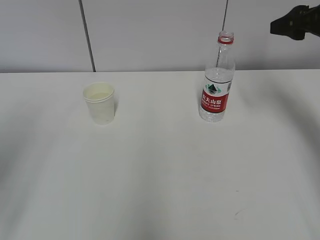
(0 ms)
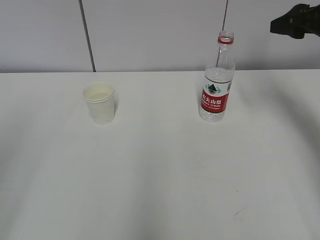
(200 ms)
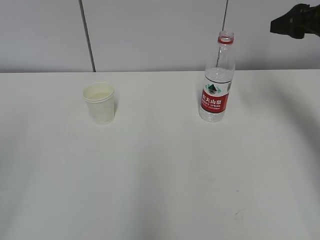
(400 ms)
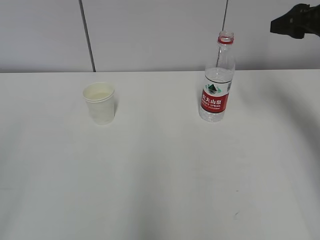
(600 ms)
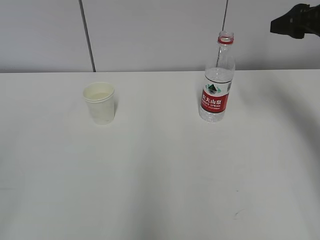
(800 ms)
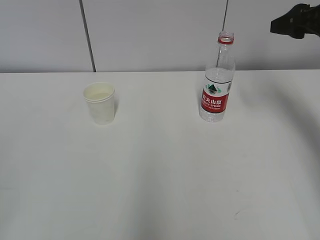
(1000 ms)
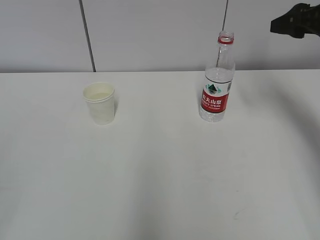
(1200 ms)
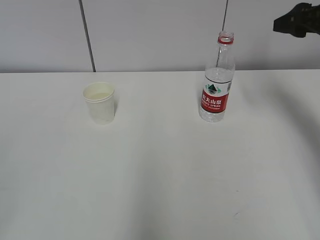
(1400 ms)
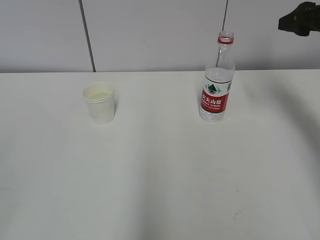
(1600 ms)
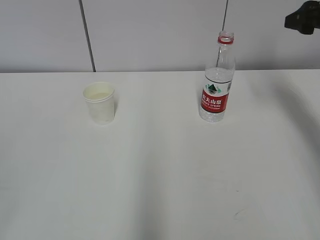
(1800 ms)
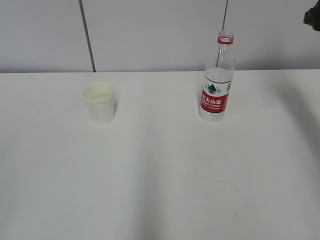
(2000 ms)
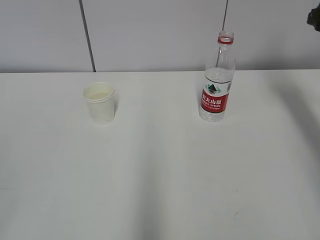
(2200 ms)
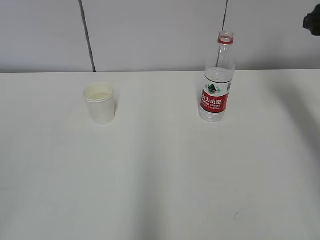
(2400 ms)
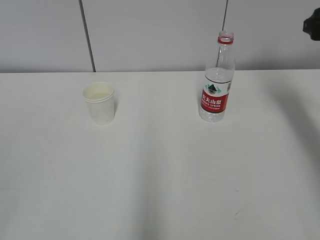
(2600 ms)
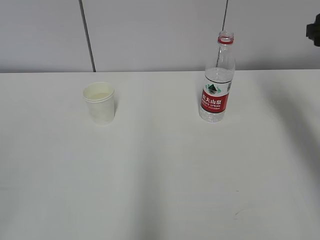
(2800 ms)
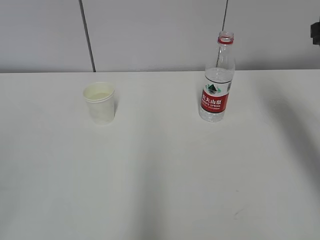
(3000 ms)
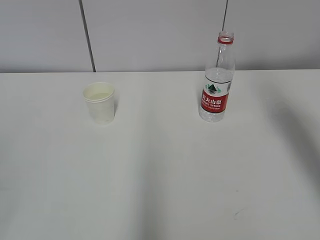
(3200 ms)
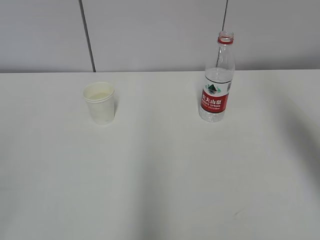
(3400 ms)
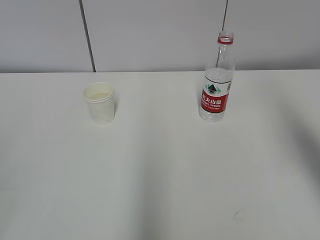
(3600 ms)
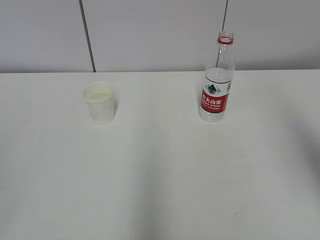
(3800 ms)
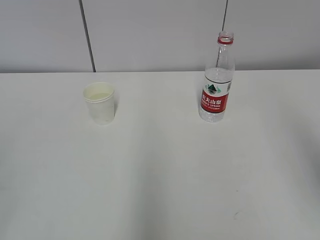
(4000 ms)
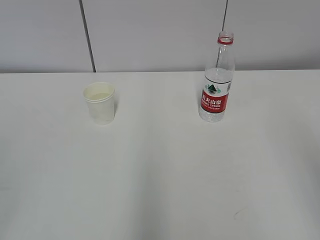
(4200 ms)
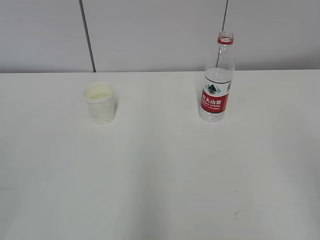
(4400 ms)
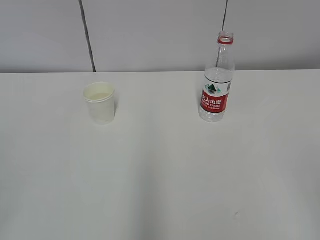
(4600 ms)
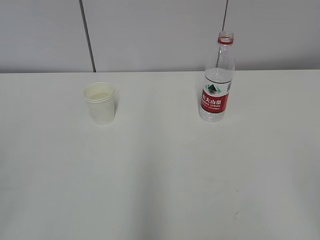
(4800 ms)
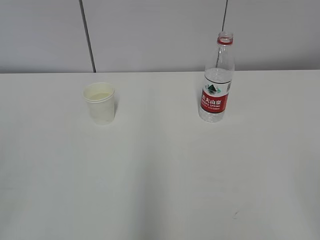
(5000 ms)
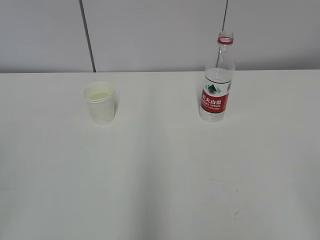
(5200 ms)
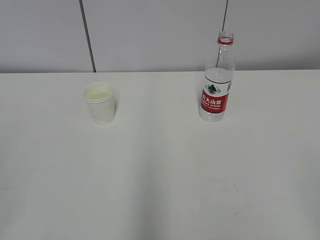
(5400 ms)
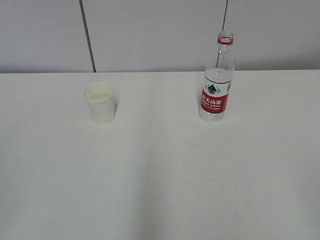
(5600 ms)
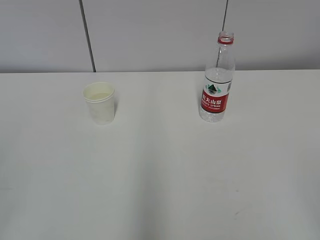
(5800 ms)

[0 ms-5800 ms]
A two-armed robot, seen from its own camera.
0 ms to 1400 ms: The left gripper goes about 15 cm backward.
2800 ms to 4400 ms: The right gripper shifts some 35 cm backward.

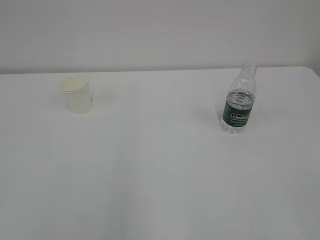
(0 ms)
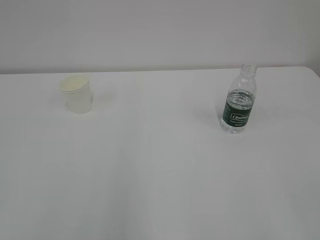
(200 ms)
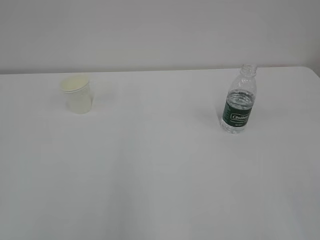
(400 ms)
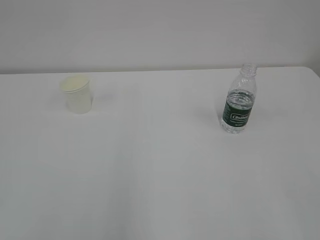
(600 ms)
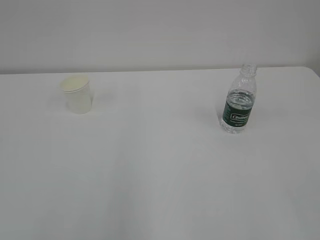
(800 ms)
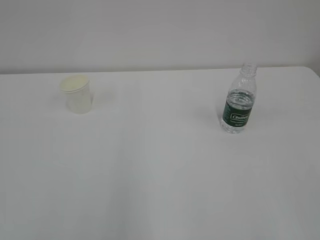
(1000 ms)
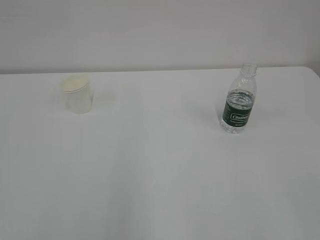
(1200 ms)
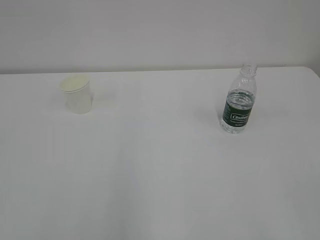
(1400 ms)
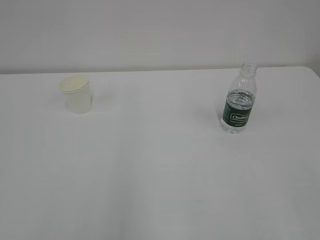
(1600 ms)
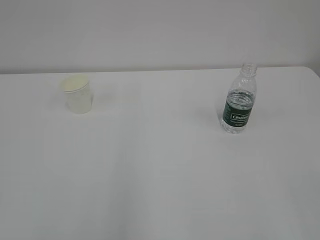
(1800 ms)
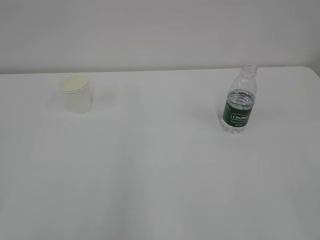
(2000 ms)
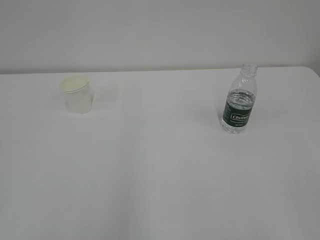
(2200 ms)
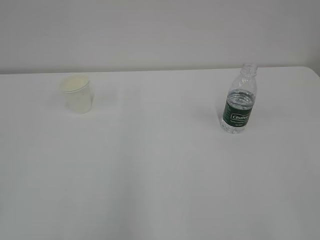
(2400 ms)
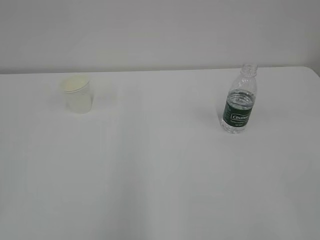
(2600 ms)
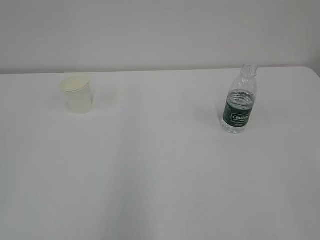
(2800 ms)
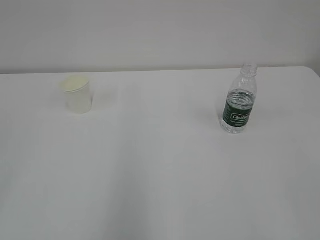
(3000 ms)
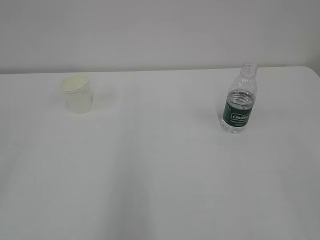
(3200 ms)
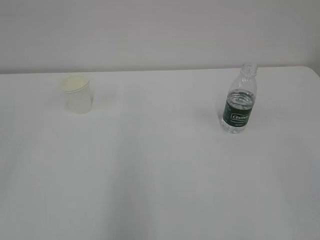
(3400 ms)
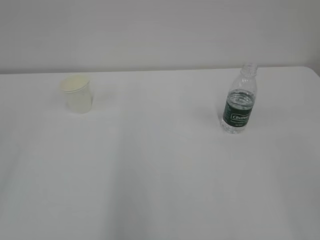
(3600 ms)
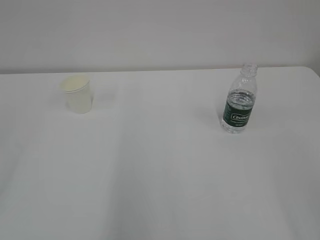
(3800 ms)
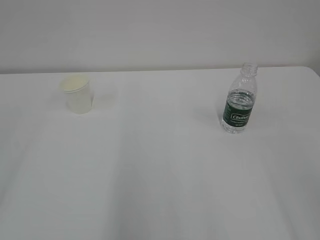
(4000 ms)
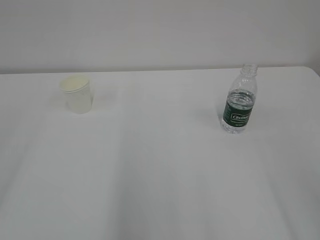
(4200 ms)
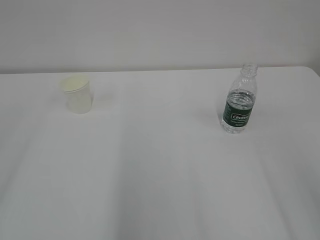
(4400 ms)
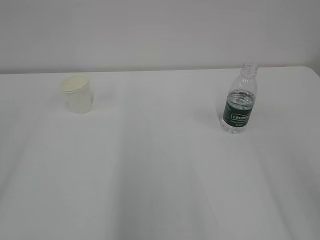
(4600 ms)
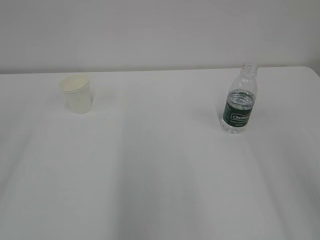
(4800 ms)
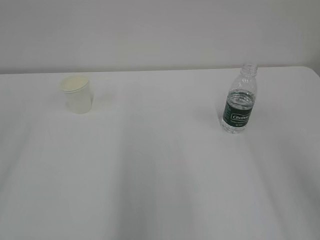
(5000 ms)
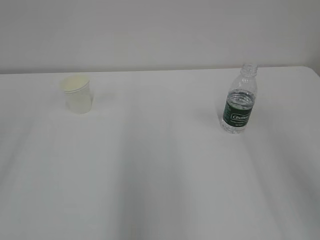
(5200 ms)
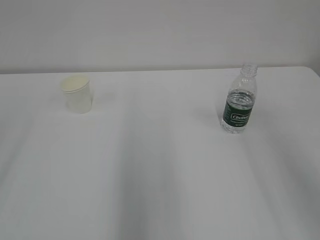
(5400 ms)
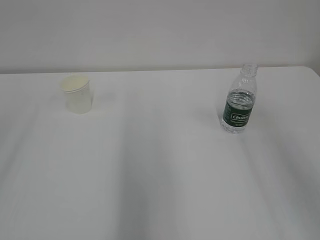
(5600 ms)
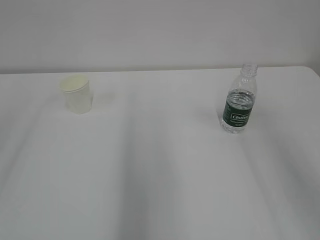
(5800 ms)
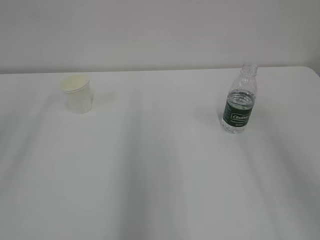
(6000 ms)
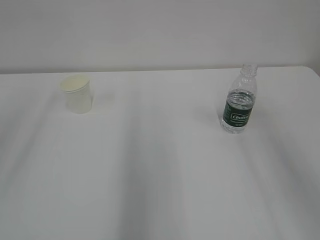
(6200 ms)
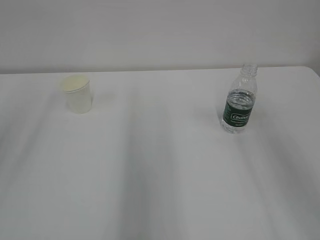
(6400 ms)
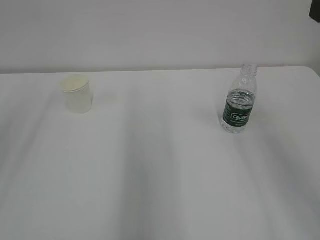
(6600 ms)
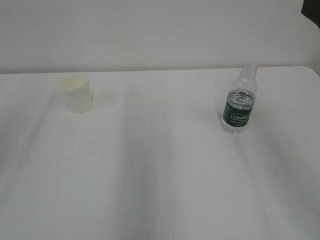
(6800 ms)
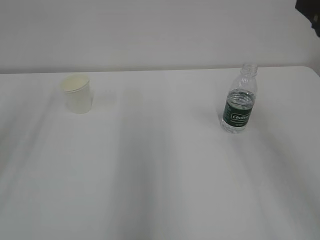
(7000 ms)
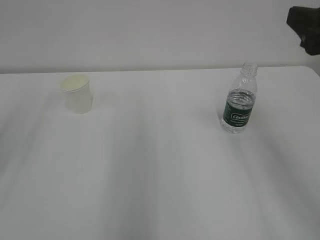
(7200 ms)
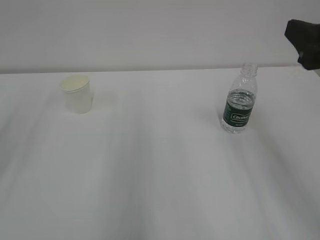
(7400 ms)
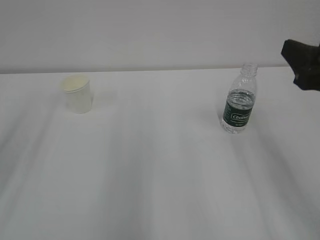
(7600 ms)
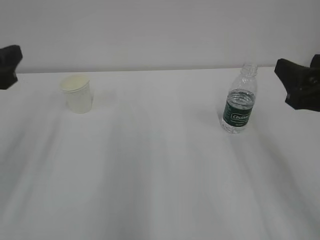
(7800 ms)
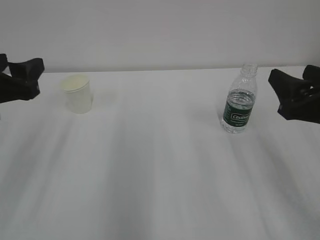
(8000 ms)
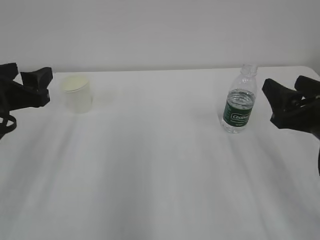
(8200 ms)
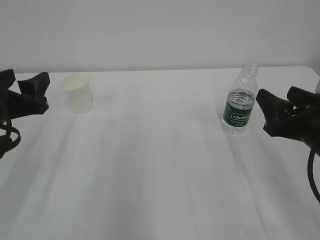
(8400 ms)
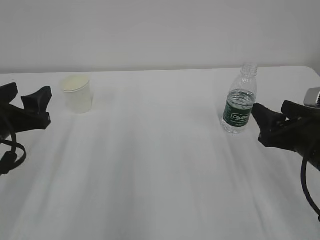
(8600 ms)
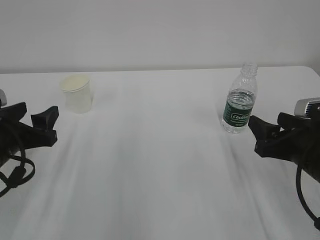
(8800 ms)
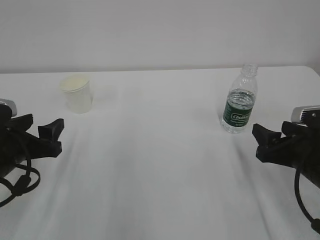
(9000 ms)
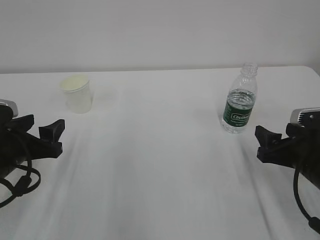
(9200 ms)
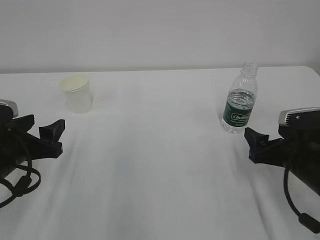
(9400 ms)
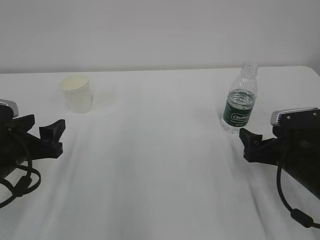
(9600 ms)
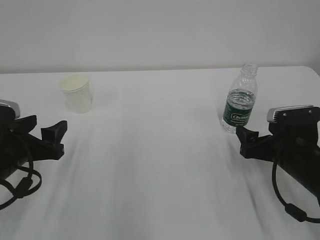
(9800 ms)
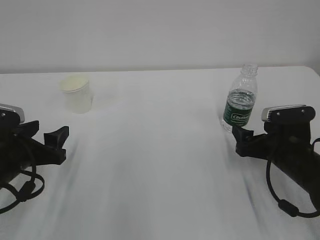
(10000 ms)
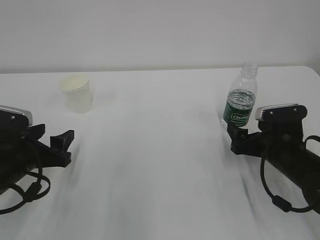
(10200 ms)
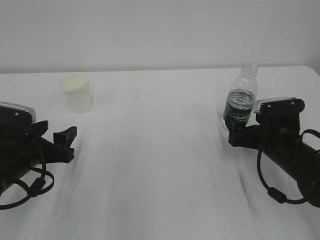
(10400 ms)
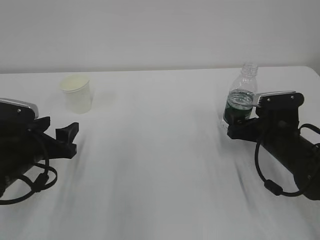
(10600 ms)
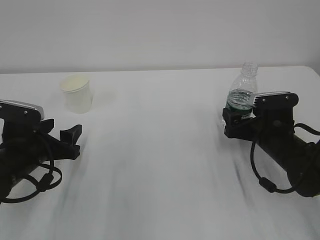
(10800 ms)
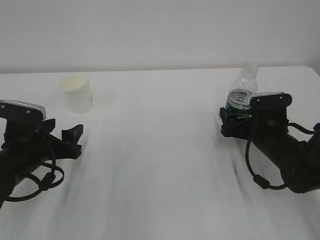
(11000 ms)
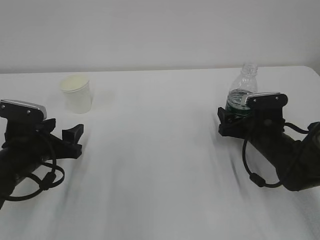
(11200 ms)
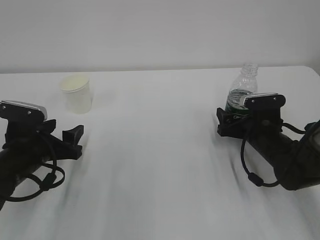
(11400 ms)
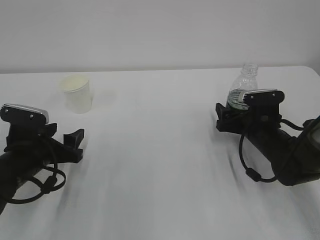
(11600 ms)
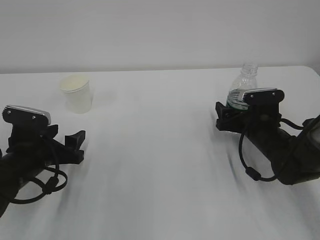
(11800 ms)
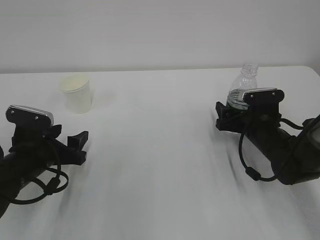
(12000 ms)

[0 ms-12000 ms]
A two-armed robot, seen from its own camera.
6000 ms to 7600 ms: The right gripper heads downward and forward, covering some 10 cm.
7600 ms to 9000 ms: The grippers both shift downward by about 15 cm.
9000 ms to 10400 ms: The right gripper moves forward, some 5 cm, and opens its fingers.
10400 ms to 12000 ms: The right gripper goes roughly 5 cm forward.

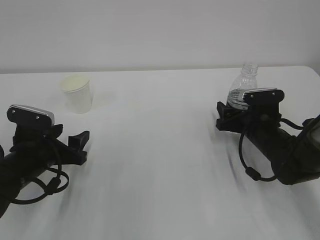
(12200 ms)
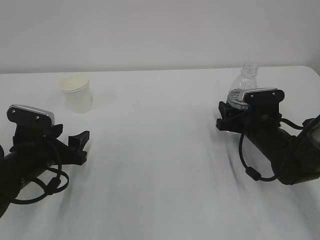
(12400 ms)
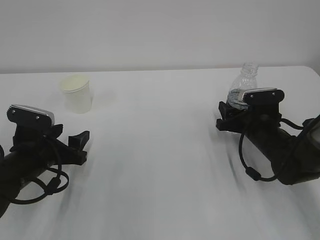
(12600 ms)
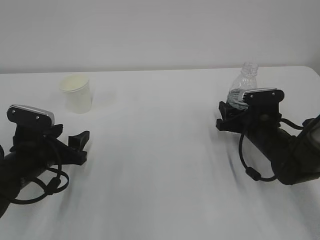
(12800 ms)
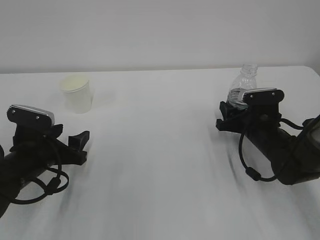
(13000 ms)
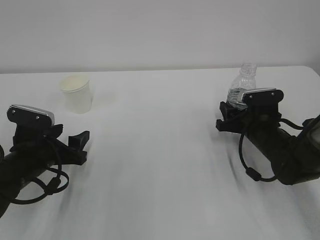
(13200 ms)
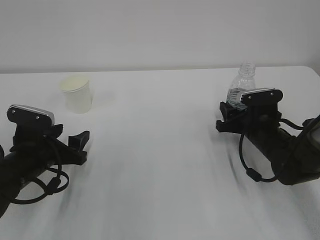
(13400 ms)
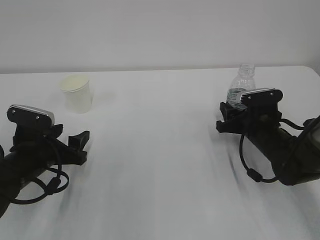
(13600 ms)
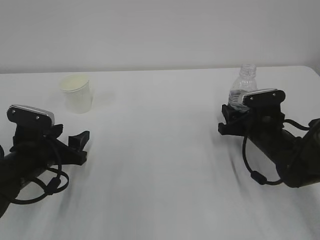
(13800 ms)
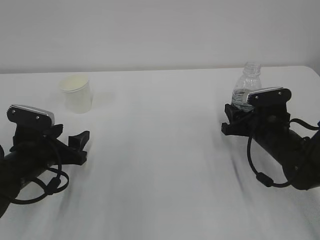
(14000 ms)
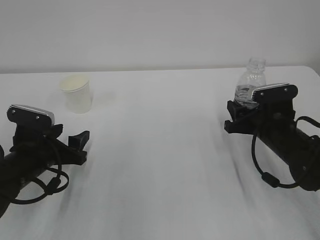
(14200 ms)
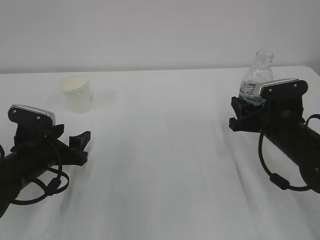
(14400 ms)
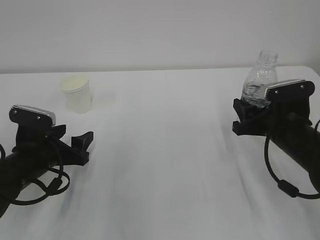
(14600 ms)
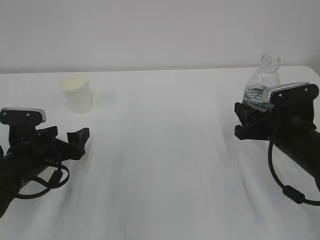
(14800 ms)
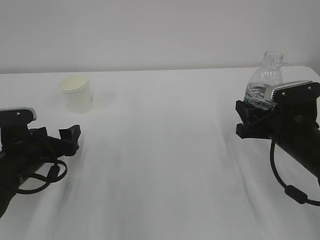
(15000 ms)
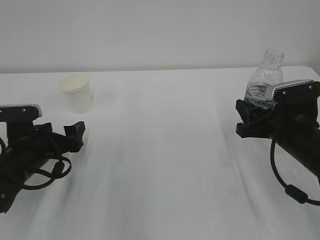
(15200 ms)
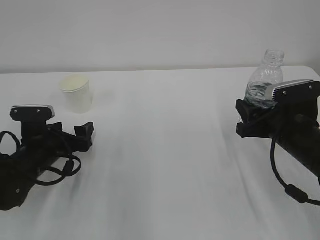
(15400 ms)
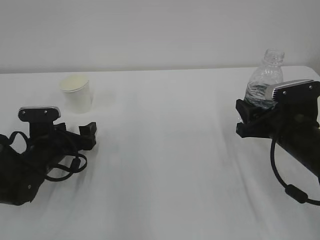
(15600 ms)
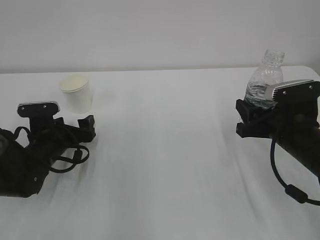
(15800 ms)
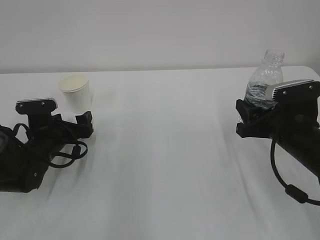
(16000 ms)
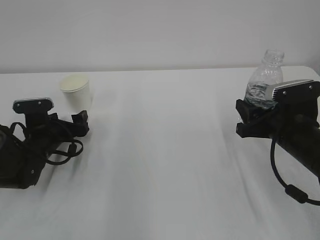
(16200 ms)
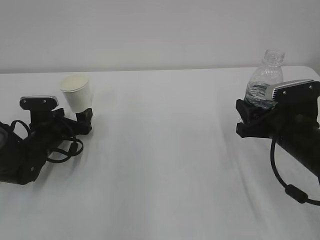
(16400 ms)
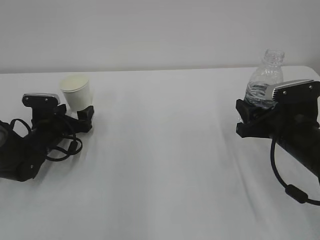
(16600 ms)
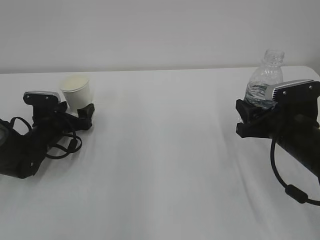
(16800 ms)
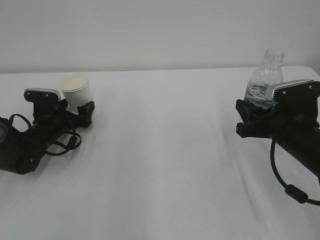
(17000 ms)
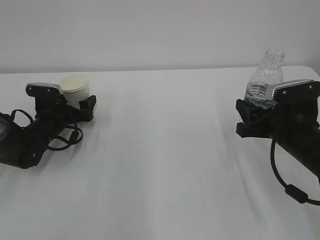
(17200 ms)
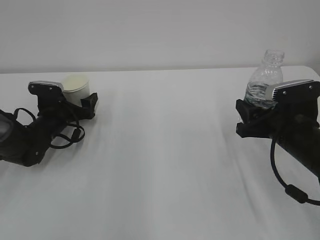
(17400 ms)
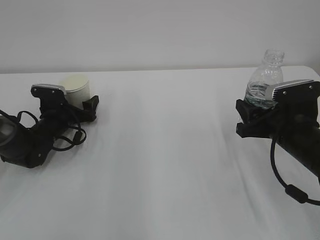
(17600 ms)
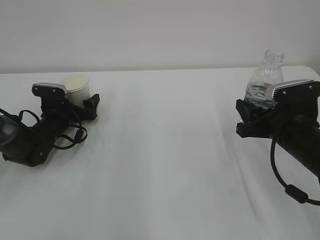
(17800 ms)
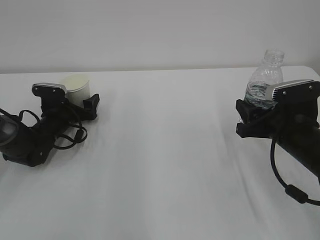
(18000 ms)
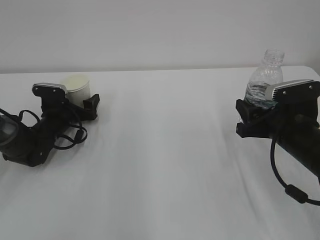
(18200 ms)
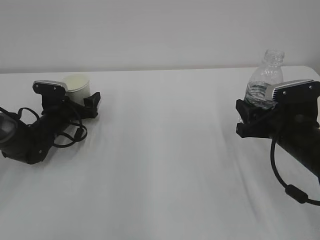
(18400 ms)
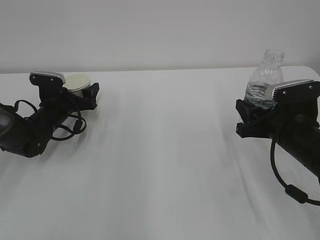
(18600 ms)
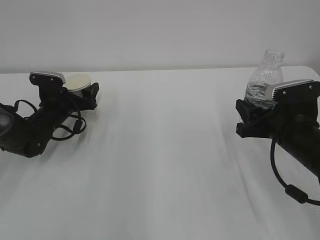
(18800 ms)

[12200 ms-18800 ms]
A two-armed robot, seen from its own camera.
12200 ms to 13800 ms: The right gripper closes.
13800 ms to 15400 ms: The right gripper travels backward and upward by about 10 cm; the left gripper opens.
15400 ms to 17200 ms: The left gripper moves forward, some 10 cm.
17200 ms to 18800 ms: The grippers make only small movements.
